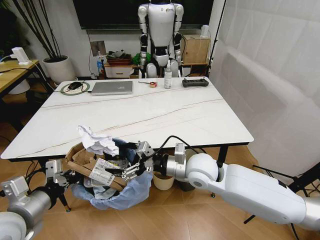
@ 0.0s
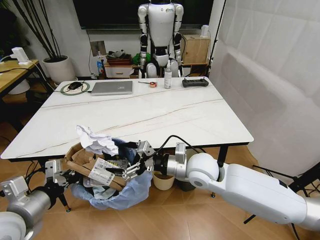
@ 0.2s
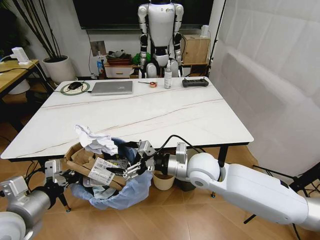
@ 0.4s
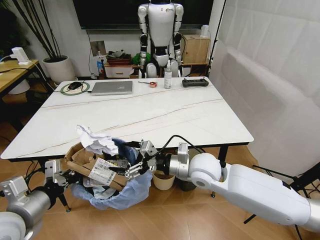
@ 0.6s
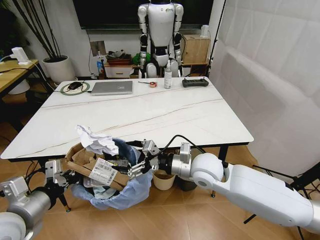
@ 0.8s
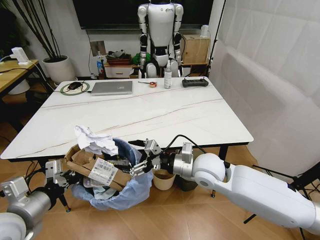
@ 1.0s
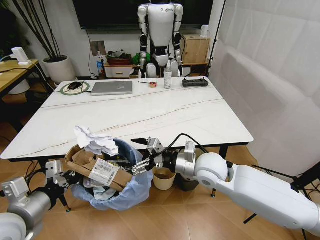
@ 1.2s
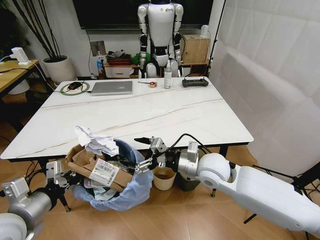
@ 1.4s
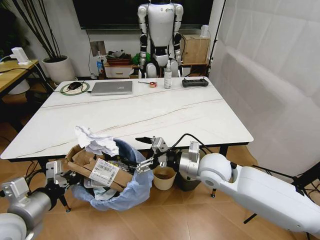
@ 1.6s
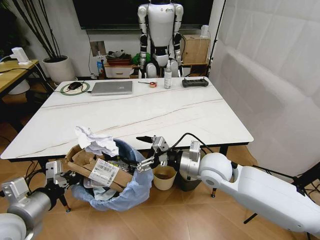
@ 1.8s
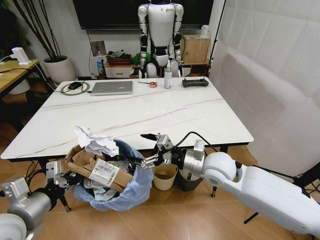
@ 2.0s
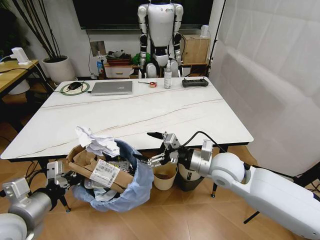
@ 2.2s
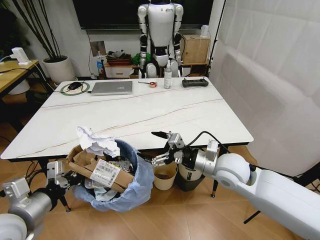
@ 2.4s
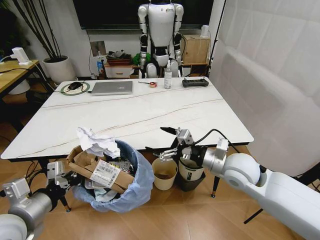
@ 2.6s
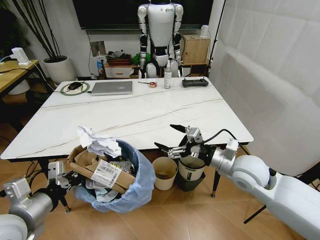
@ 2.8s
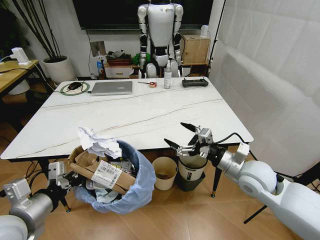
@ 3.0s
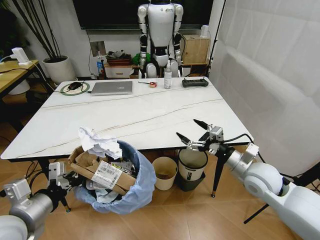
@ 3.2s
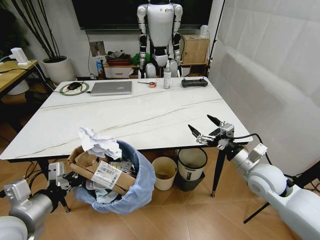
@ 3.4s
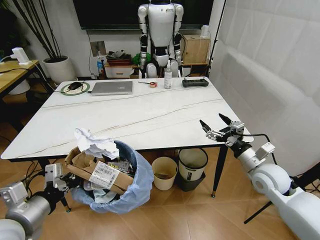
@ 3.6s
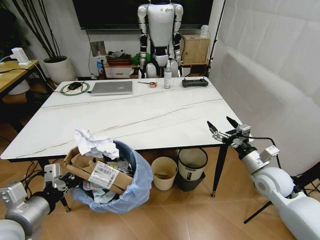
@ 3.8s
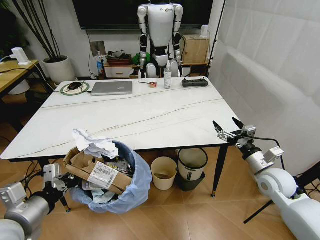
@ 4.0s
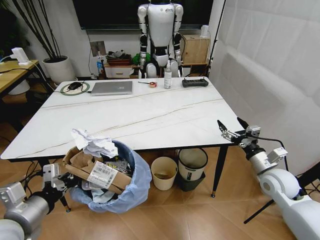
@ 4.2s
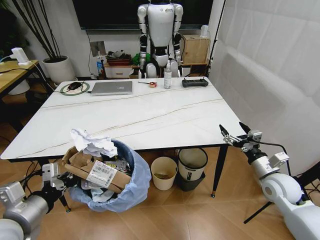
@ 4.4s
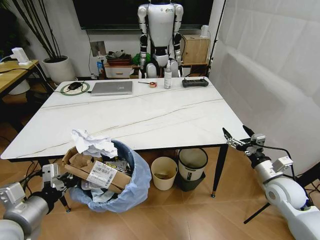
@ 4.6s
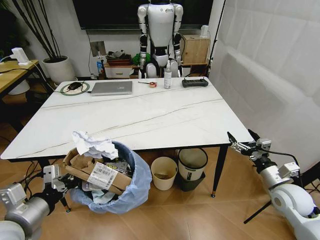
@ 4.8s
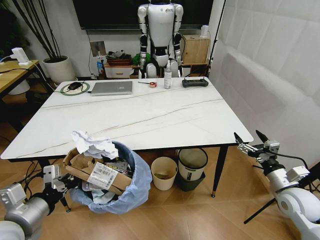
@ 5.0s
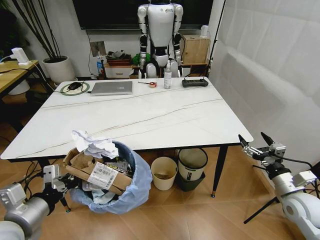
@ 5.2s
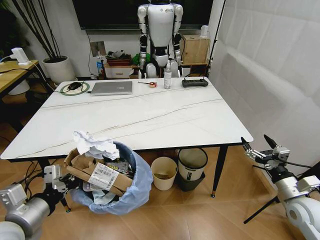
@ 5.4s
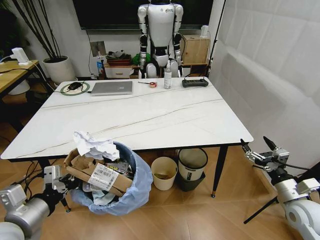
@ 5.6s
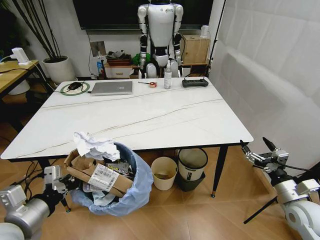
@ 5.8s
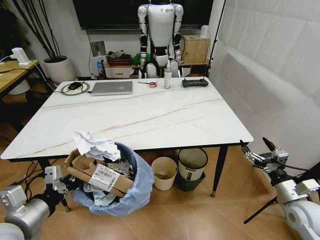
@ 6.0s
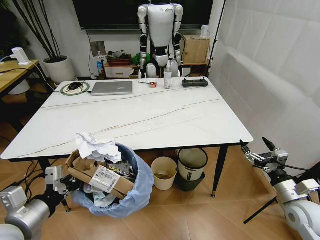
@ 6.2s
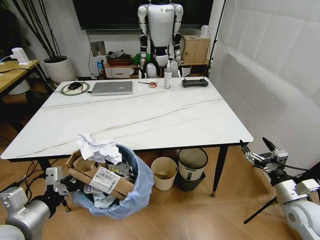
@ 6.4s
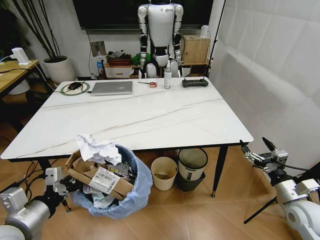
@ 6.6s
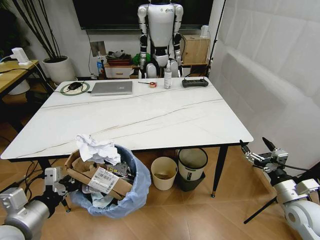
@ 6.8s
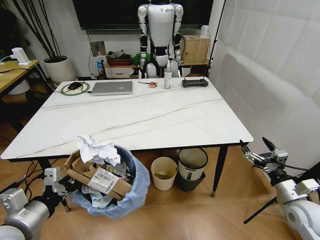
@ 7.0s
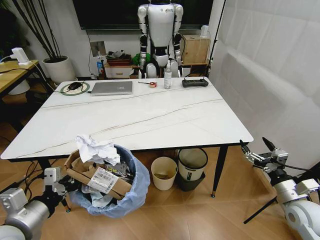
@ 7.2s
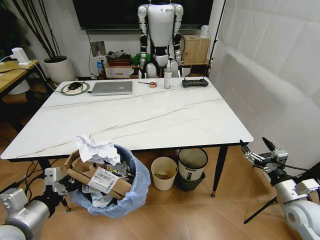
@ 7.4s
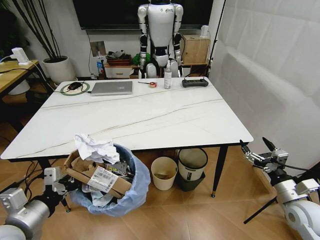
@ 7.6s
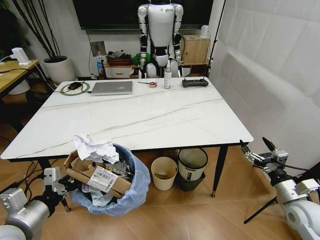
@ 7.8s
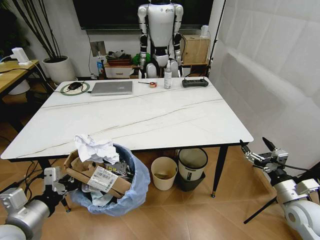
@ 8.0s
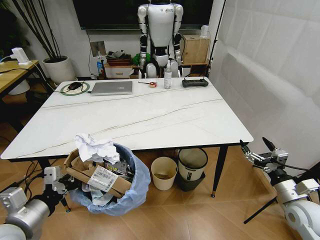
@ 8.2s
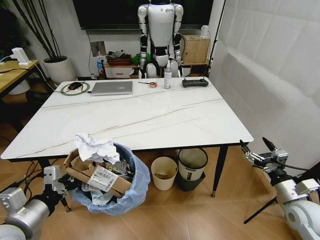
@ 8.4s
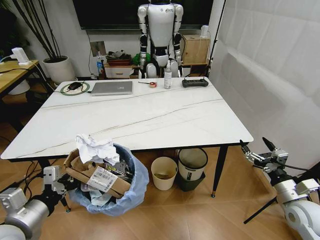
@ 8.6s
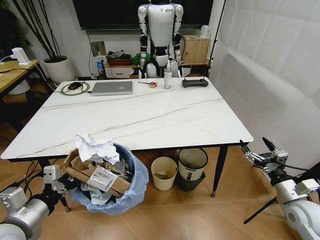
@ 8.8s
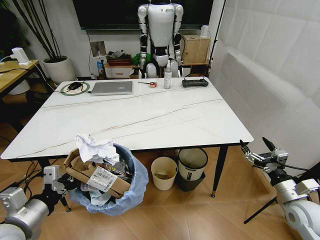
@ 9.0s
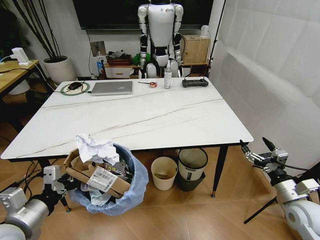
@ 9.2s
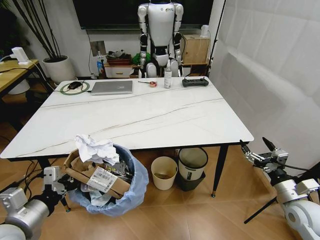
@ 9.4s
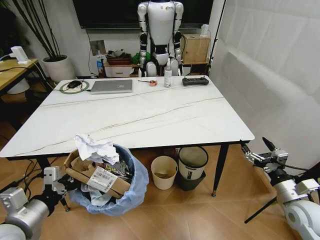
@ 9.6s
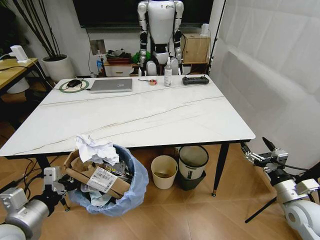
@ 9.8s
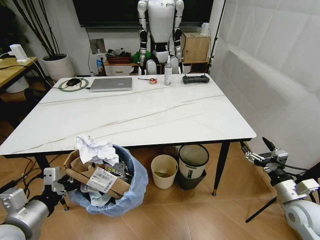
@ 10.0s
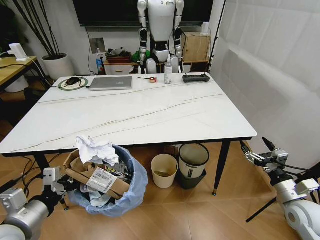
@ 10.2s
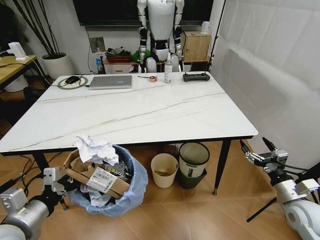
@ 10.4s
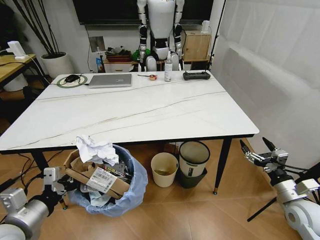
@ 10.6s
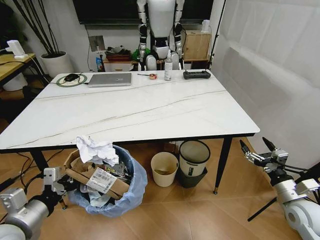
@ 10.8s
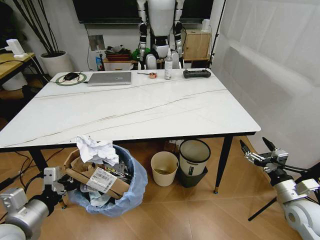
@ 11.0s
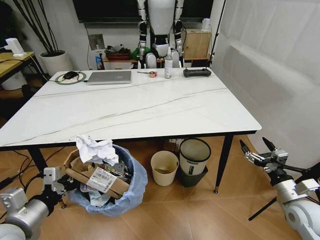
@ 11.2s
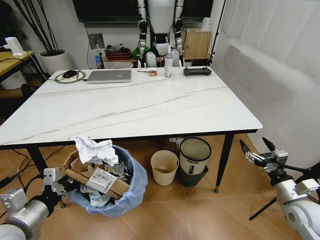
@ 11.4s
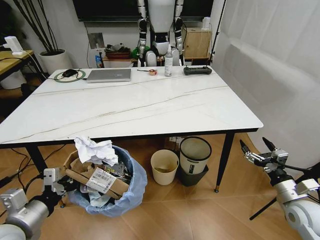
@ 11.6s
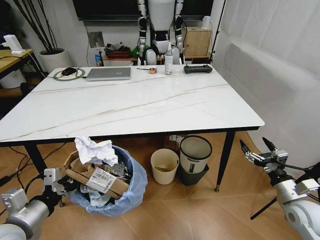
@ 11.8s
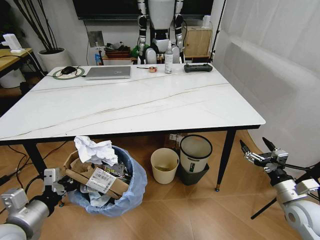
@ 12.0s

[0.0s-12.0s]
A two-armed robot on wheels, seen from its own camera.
Task of the whole recording: Pick up the trash bin and place the trash from the table into it.
0.0s to 1.6s: The grippers stay close to where they were, moving slightly.
1.6s to 3.0s: The right gripper goes some 10 cm to the right.
3.0s to 4.4s: The right gripper goes about 15 cm to the right and downward.
4.4s to 6.0s: The right gripper shifts approximately 10 cm backward.
6.0s to 7.6s: The two grippers keep their place.
7.6s to 10.4s: The two grippers keep their place.

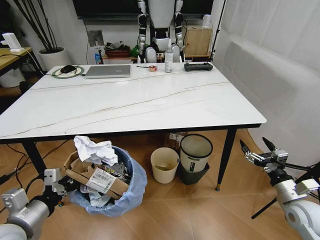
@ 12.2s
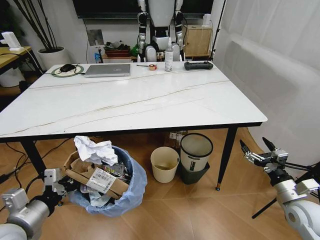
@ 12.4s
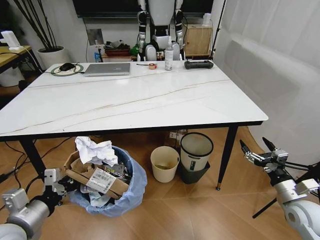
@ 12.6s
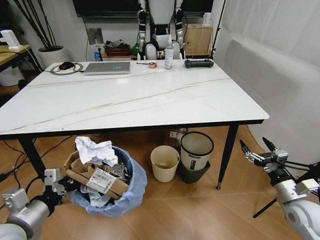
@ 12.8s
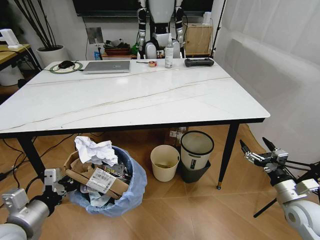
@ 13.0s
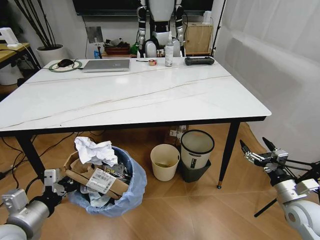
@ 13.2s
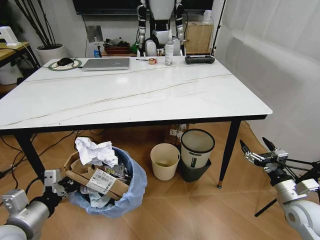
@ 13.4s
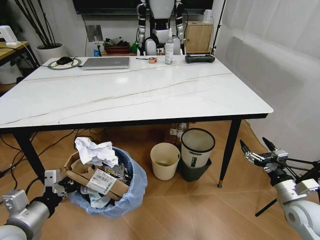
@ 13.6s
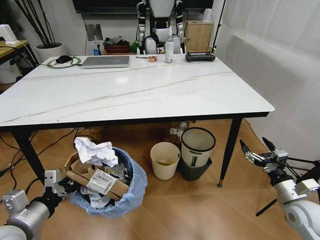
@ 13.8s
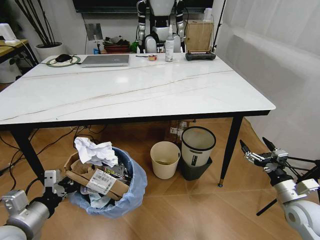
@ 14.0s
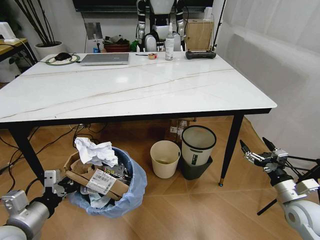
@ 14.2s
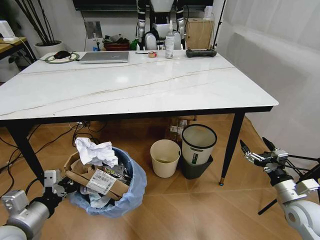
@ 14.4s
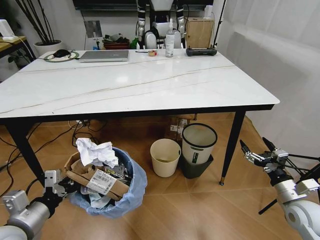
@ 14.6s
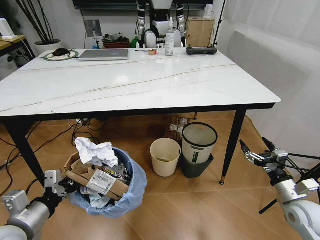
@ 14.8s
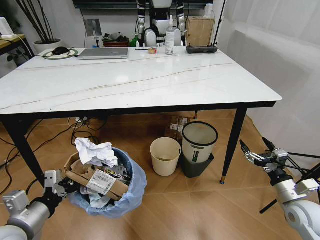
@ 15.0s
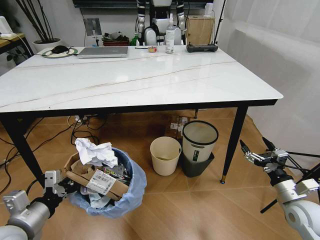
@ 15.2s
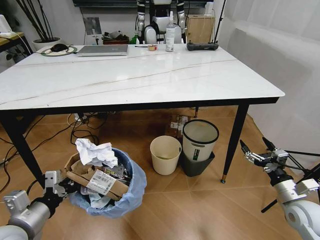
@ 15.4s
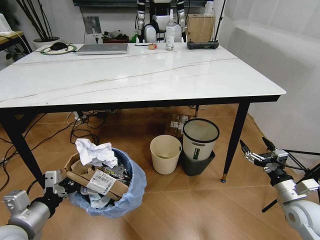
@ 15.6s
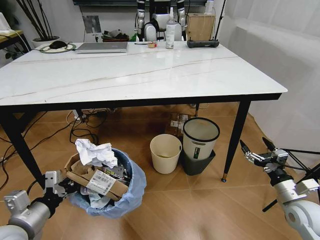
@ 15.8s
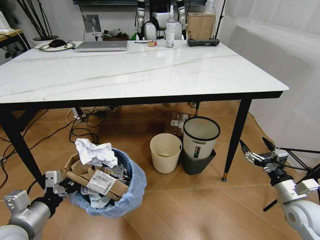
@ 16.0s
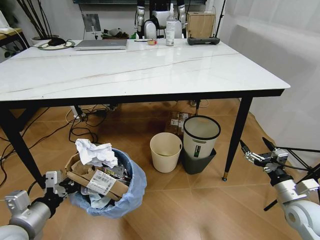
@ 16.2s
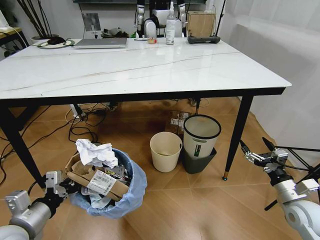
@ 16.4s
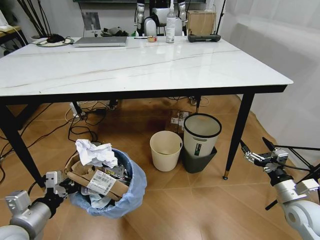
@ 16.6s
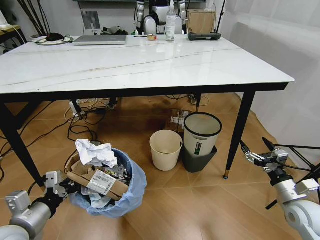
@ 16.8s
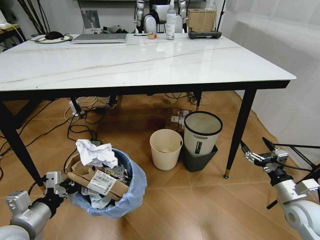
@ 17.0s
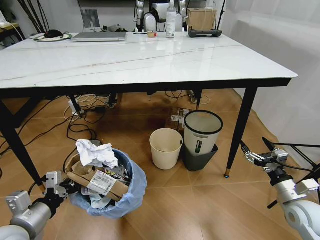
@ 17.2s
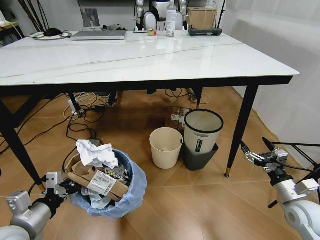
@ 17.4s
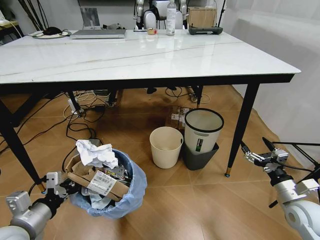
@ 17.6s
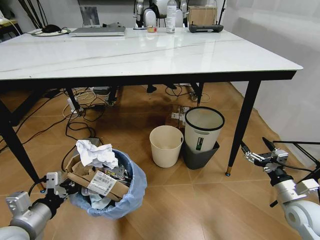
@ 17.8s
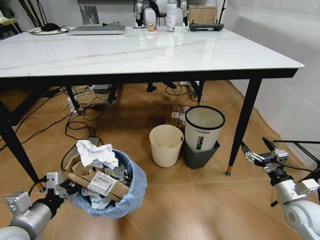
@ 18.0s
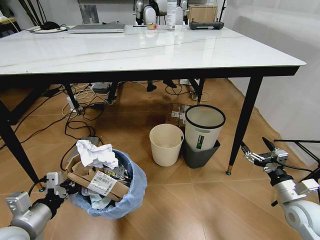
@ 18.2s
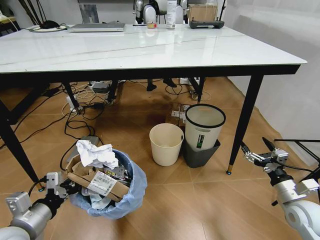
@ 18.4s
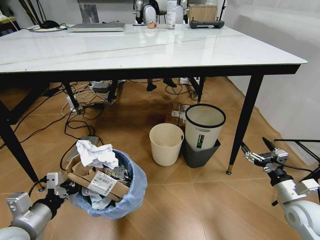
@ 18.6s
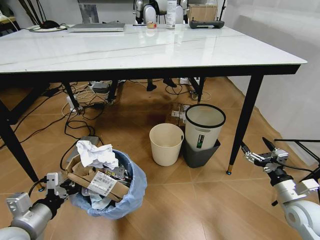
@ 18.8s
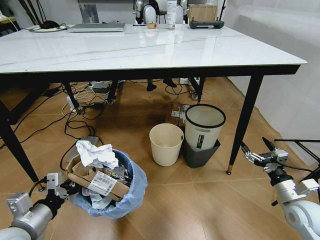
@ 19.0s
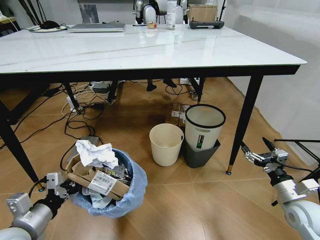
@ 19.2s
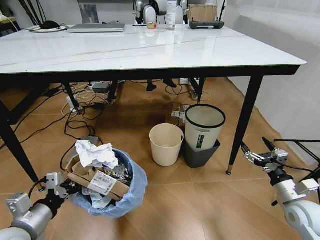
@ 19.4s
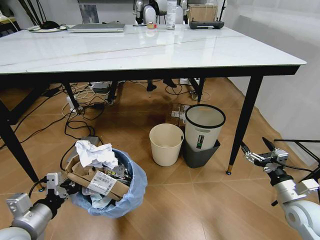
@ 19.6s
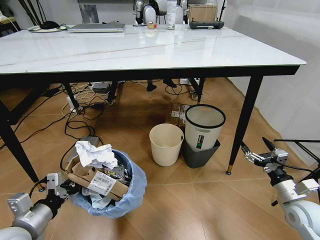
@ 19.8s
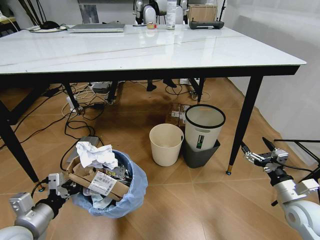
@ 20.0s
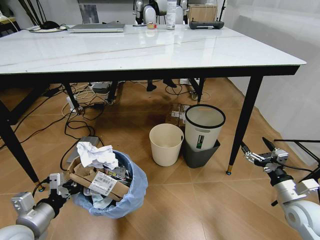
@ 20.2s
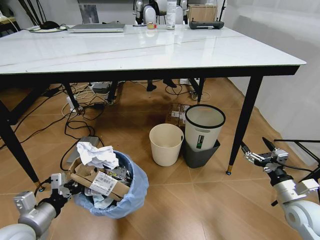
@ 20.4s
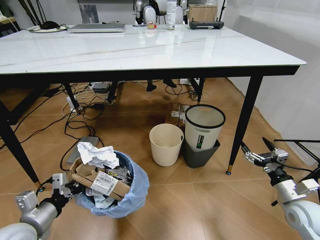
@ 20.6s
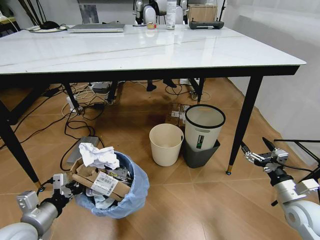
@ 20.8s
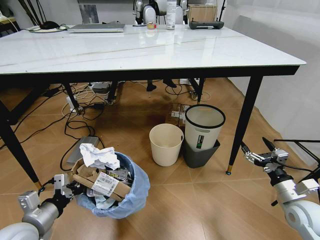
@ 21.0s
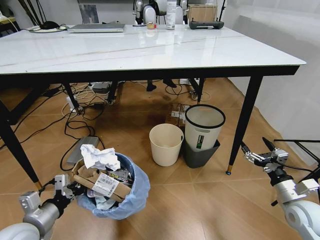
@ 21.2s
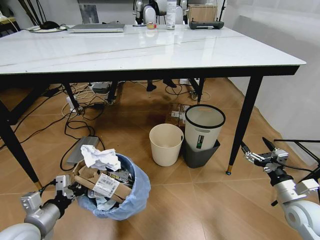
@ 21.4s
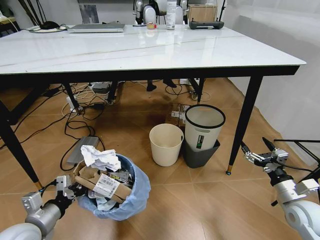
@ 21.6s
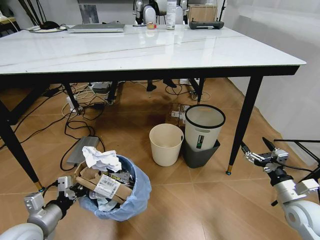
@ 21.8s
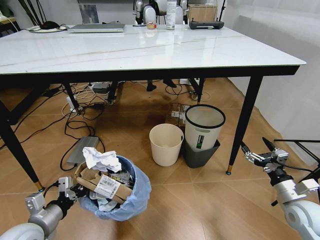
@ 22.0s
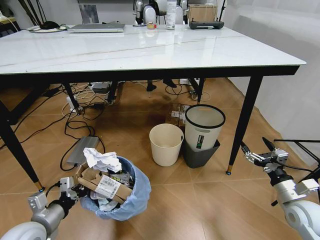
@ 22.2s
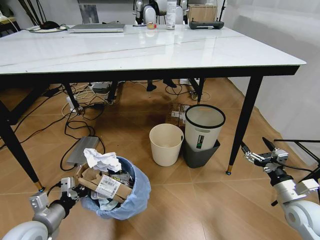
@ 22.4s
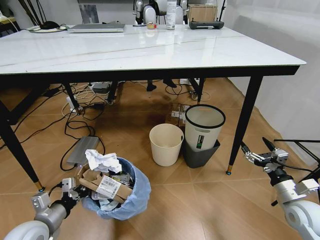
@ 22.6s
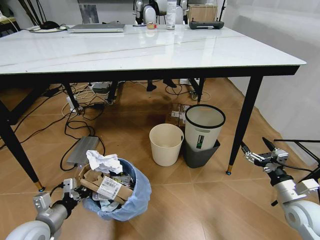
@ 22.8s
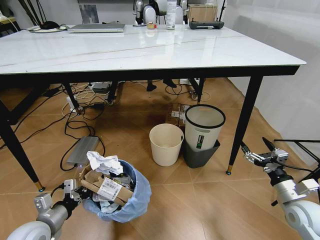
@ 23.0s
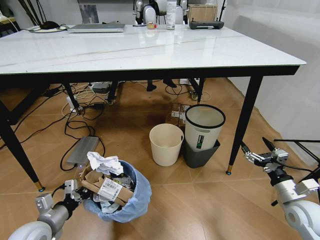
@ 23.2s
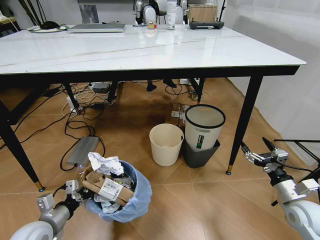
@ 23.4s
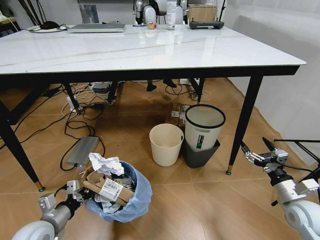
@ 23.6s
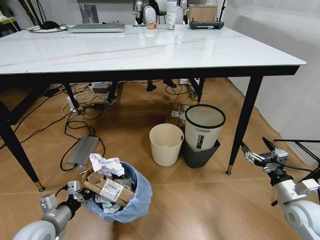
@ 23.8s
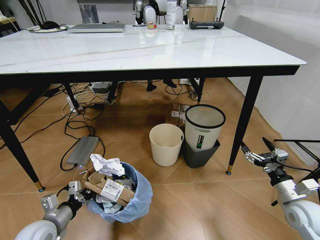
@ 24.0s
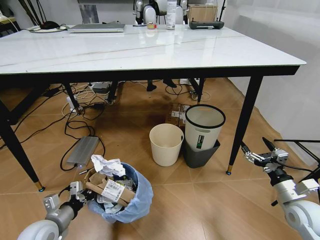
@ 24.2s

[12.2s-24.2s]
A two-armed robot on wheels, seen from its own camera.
Task of the whole recording: Pick up the trash bin and place the trash from the table into it.
18.2s to 19.8s: The two grippers keep their place.
19.8s to 21.2s: There are only small adjustments of the grippers.
21.2s to 22.6s: The grippers stay close to where they were, moving slightly.
22.6s to 24.2s: The grippers move only a little.
